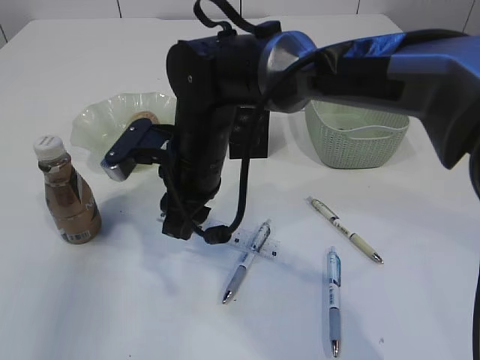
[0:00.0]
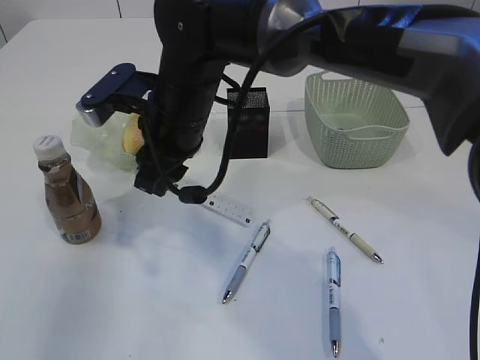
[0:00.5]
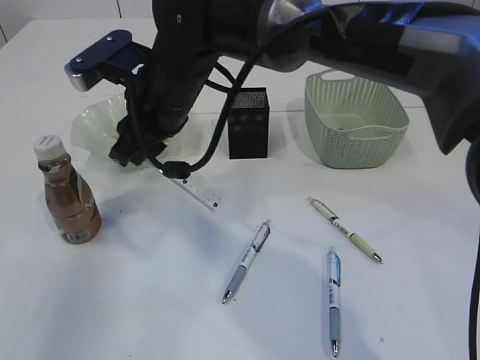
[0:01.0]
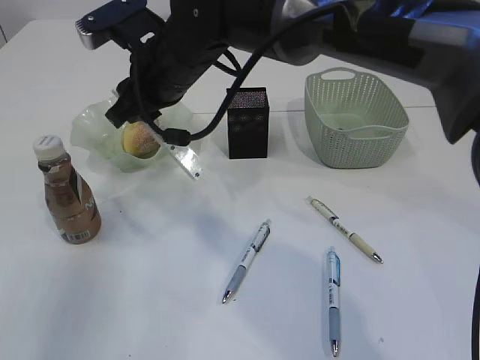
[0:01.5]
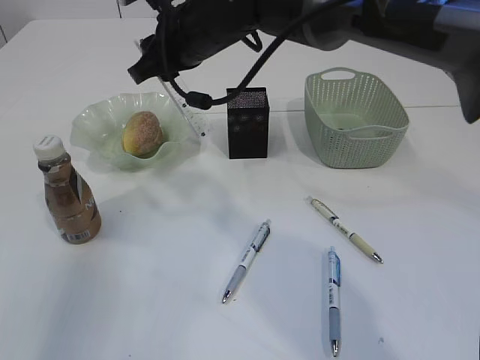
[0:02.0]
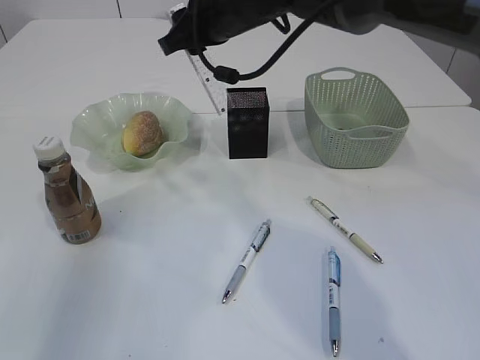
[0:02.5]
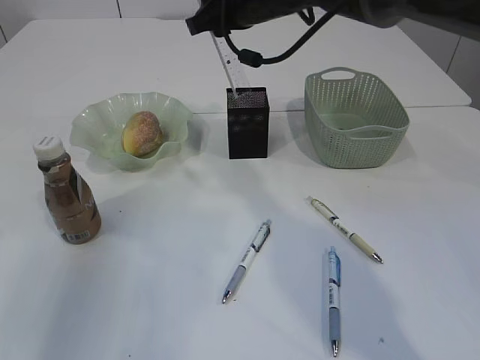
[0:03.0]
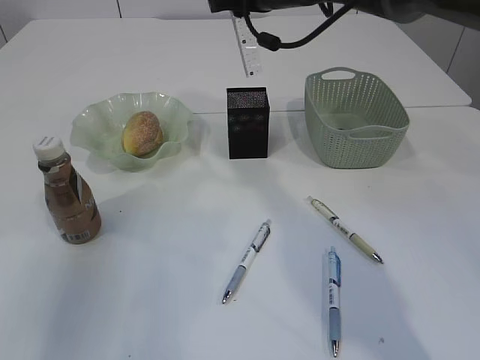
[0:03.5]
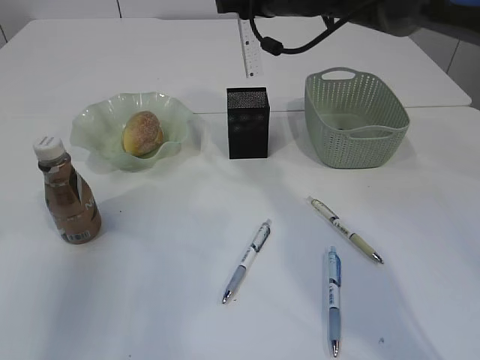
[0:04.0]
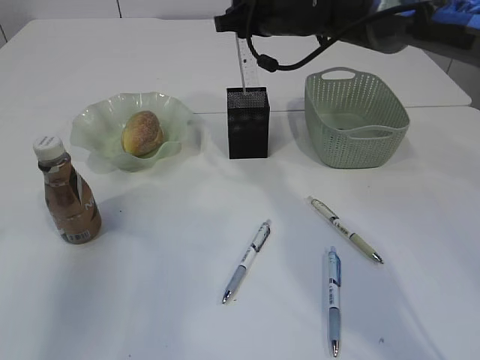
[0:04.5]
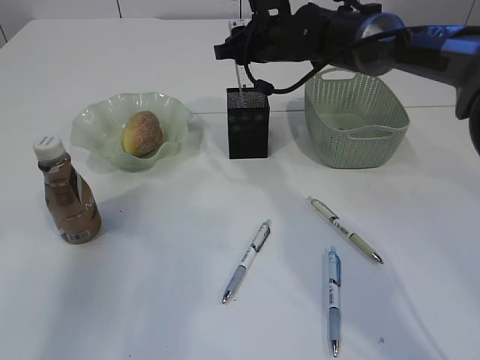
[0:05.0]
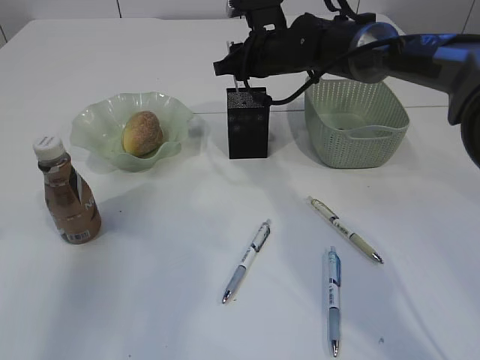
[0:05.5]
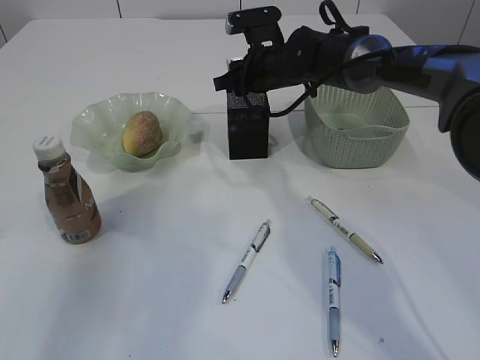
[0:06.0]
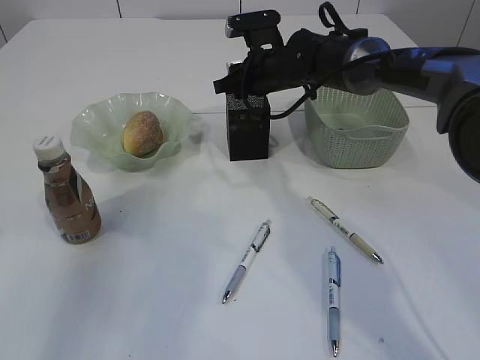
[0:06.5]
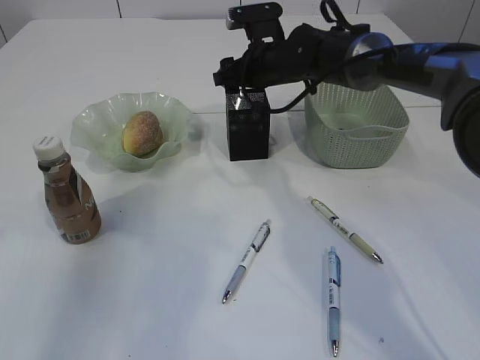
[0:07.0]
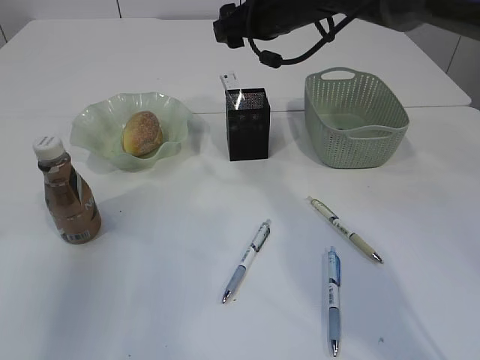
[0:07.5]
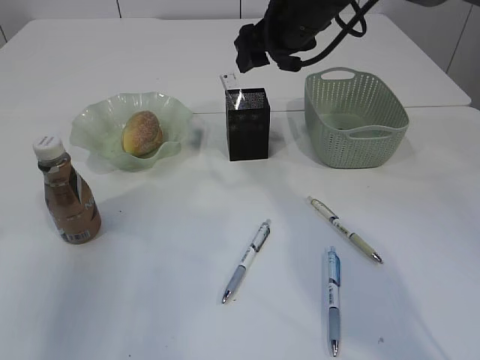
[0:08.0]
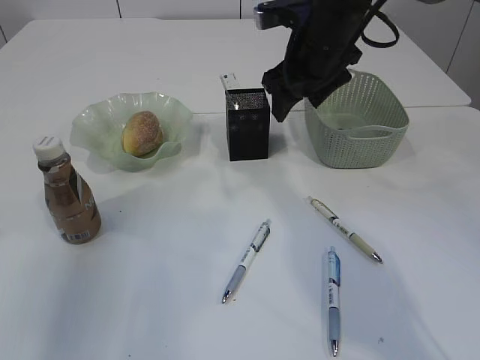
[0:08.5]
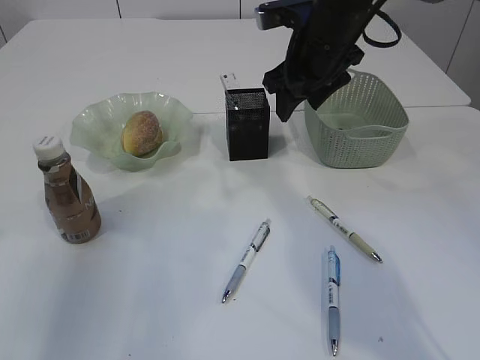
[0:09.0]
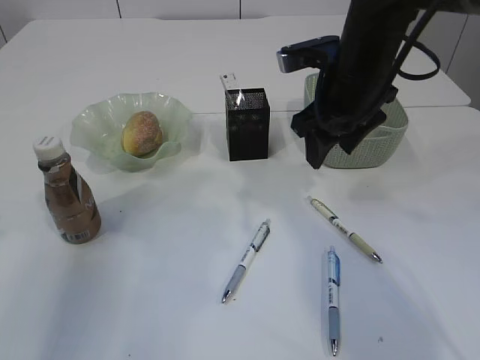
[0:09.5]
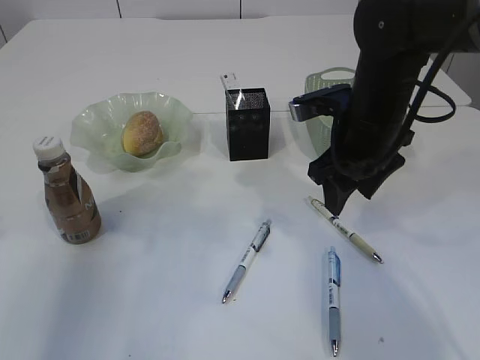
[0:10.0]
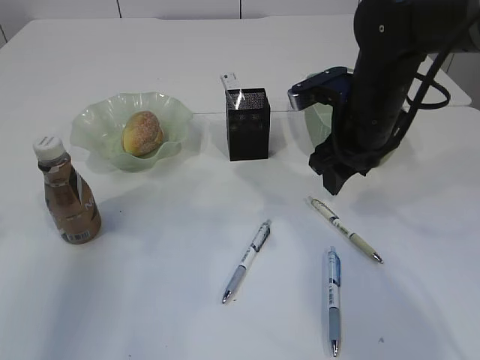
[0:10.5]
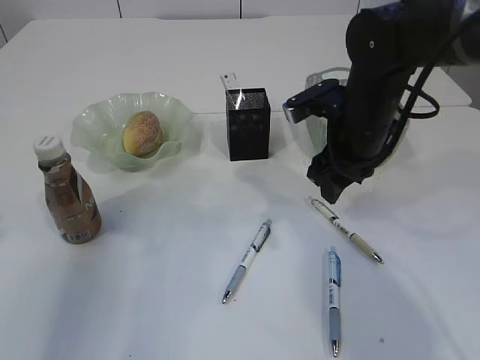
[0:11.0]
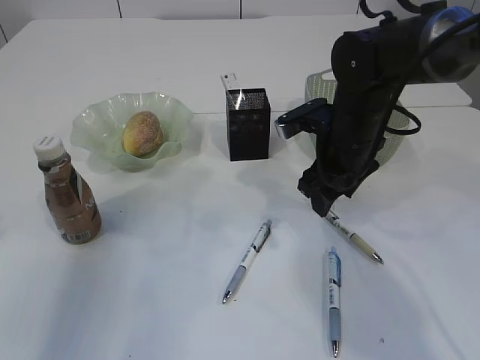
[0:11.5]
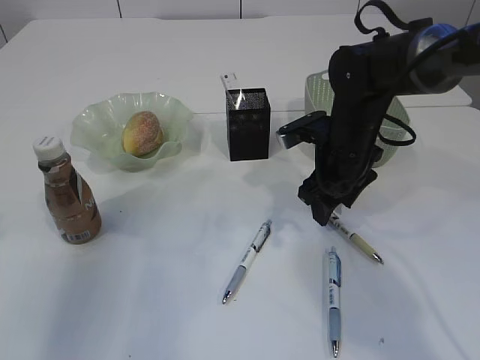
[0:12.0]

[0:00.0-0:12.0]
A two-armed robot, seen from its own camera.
Step, 0.5 to 7.0 s: Place the ruler into the pen holder.
0.0 to 2.0 s: The right gripper is displaced upward and forward by about 15 cm.
2.0 to 4.0 s: The right gripper shifts some 15 cm to the right and forward.
4.0 to 6.0 s: The right gripper goes approximately 10 cm downward.
6.0 to 8.0 s: The right gripper moves upward and backward, some 10 cm, and opens.
8.0 to 10.0 s: The right gripper shifts roughly 15 cm backward and downward.
10.0 to 12.0 s: The right gripper goes roughly 5 cm downward.

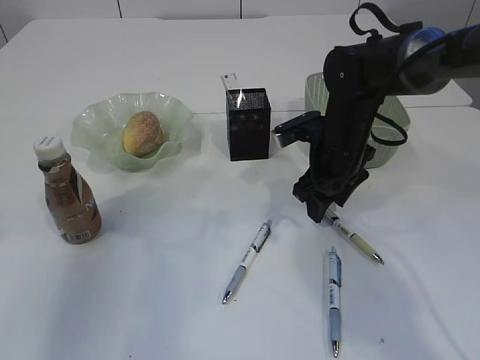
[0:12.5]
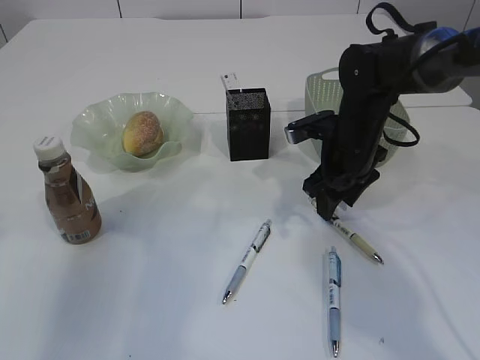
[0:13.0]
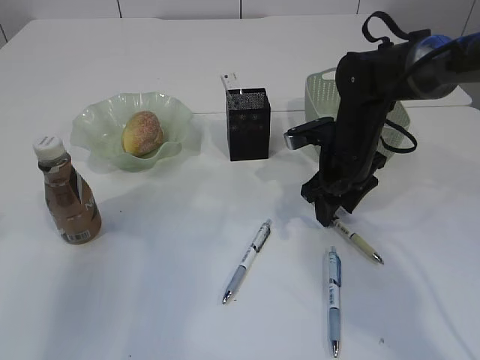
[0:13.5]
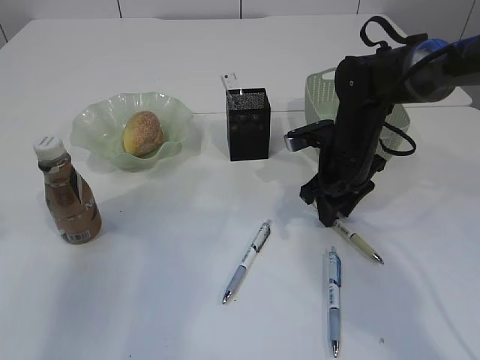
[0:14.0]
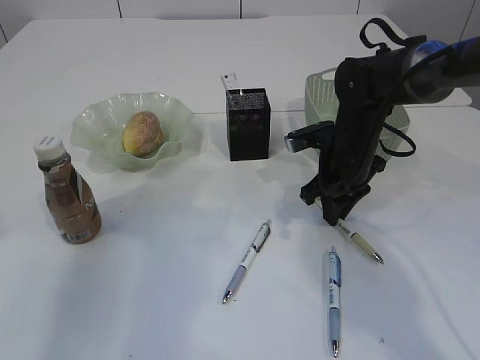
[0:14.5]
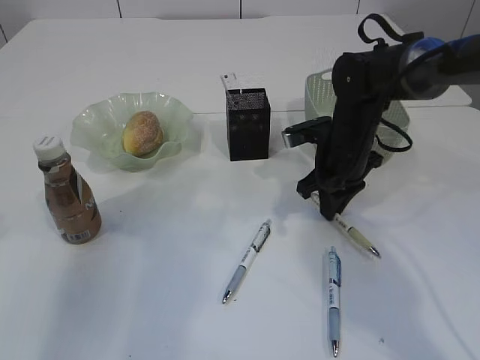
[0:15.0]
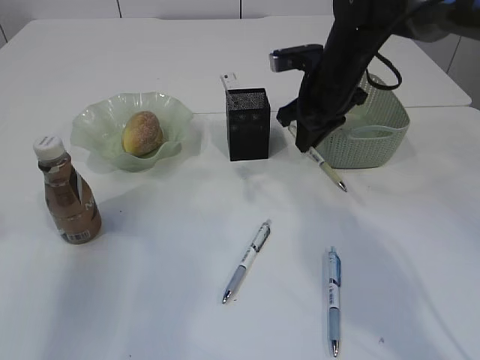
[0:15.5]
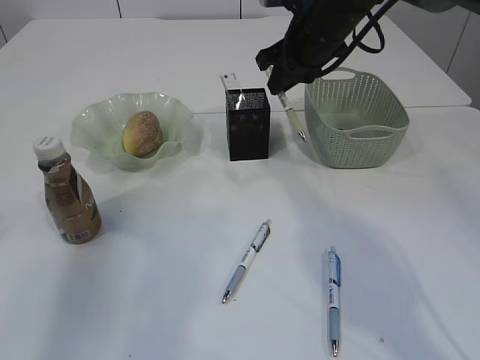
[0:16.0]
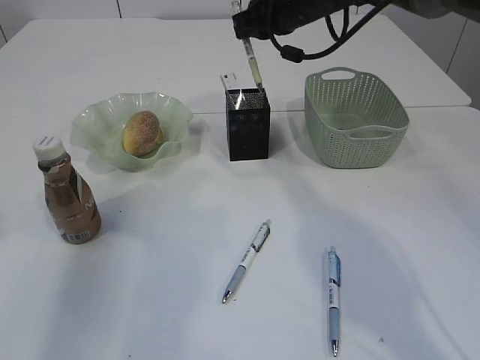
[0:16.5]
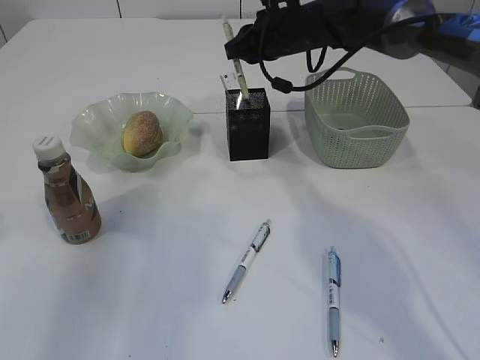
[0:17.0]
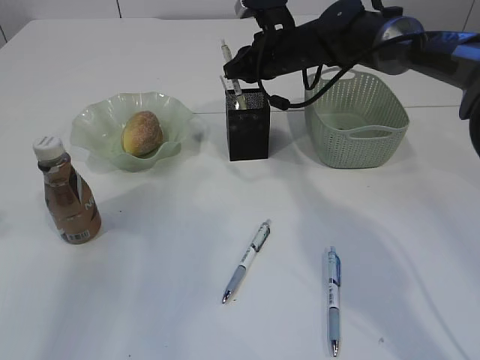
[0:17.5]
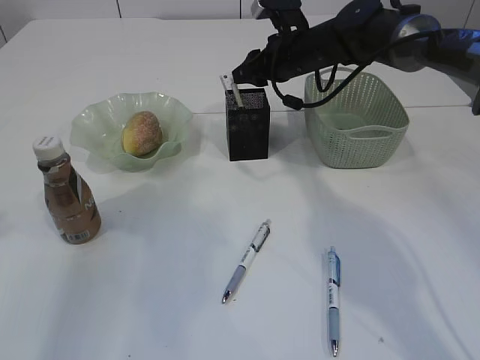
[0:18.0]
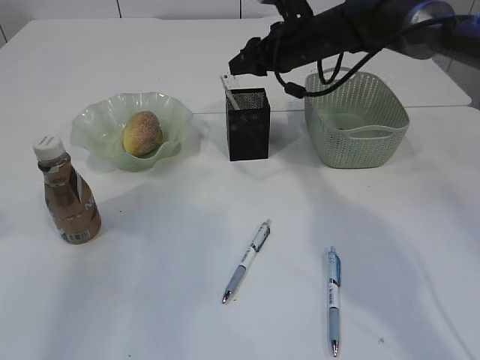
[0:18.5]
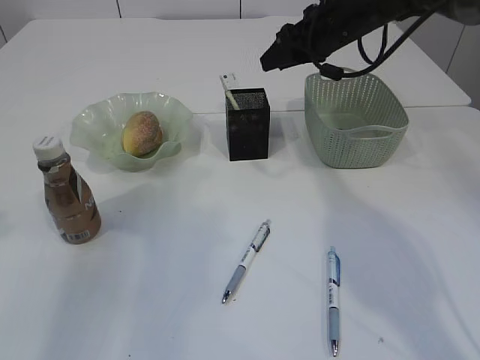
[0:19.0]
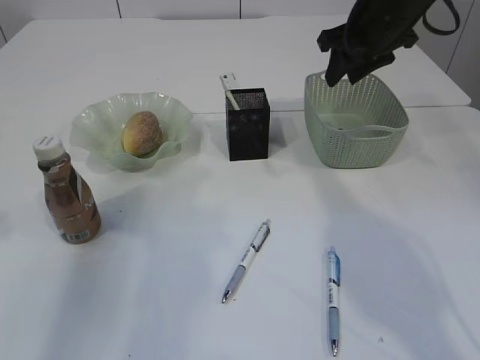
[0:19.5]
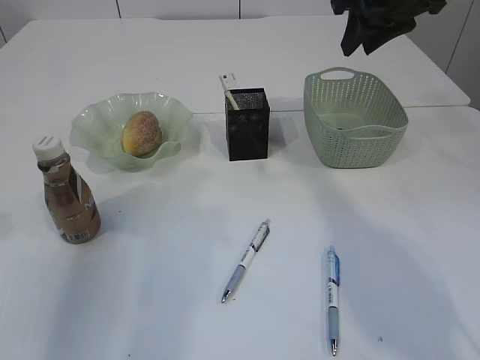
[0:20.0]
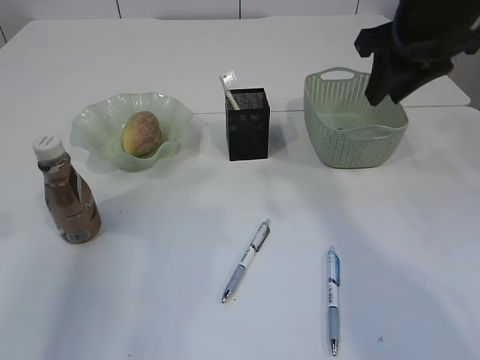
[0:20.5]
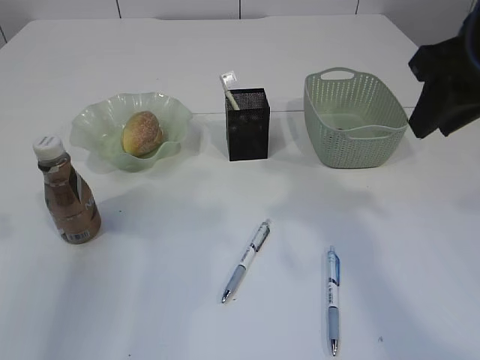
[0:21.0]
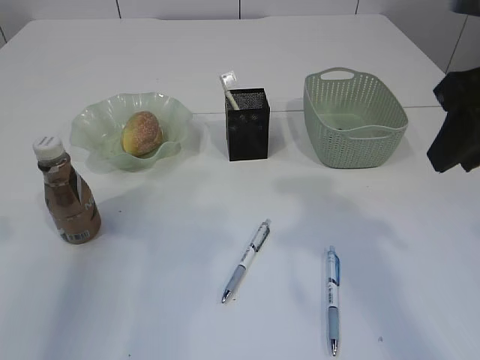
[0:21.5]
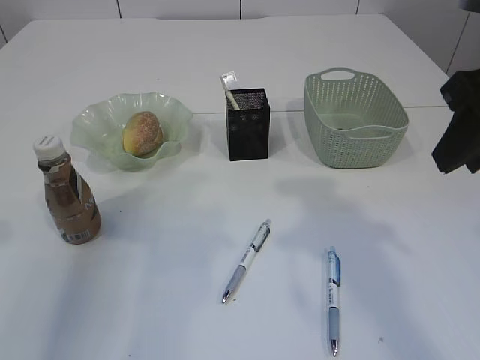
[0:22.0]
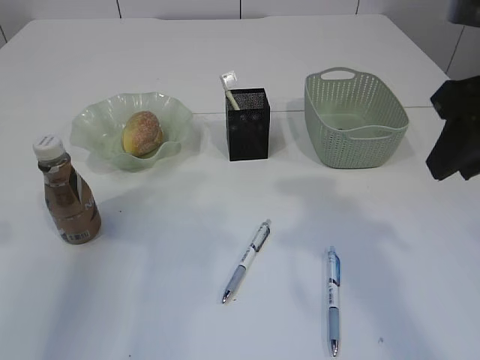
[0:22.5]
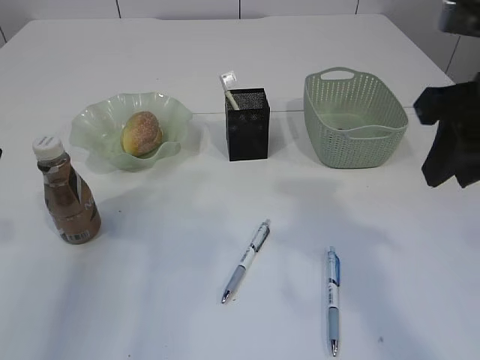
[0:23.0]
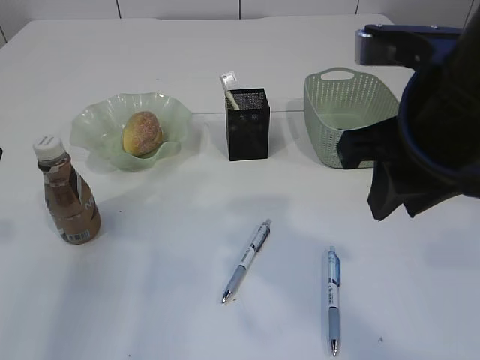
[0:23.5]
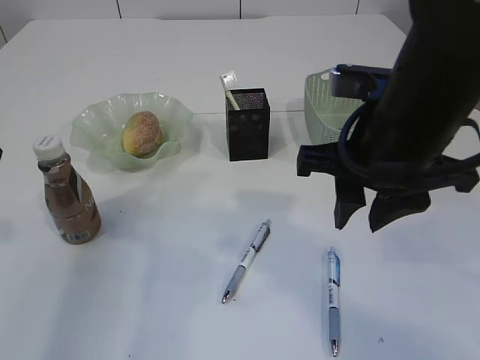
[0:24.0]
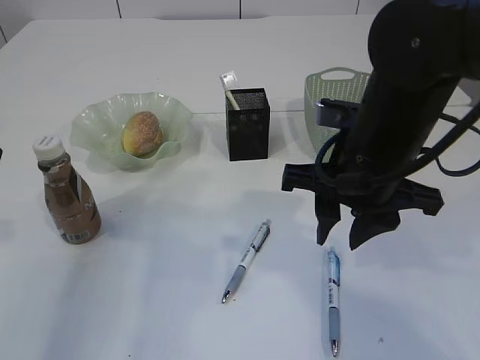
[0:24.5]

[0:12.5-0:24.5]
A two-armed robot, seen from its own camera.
Step, 12.5 to 15.0 s: Pick up the pen with right arm.
Step, 15.5 to 18.5 s: Place the pen into the pen holder.
12.5 to 14.5 s: The right gripper closes its fingers.
14.5 to 16.5 s: The right gripper is displaced upward and forward by roughly 20 cm.
16.5 to 18.5 s: The right gripper heads downward, covering approximately 5 cm, and opens its fingers.
18.5 to 20.5 s: The right gripper goes approximately 20 cm backward, upward and to the right.
20.5 to 22.5 s: The right gripper is displaced backward by roughly 10 cm.
22.5 to 24.5 s: The right gripper heads to the left and downward, covering about 15 cm.

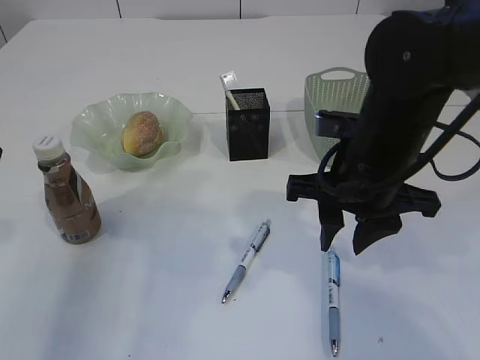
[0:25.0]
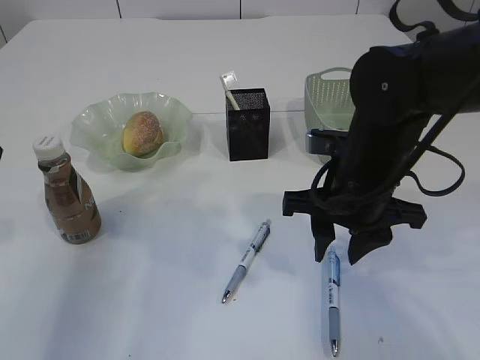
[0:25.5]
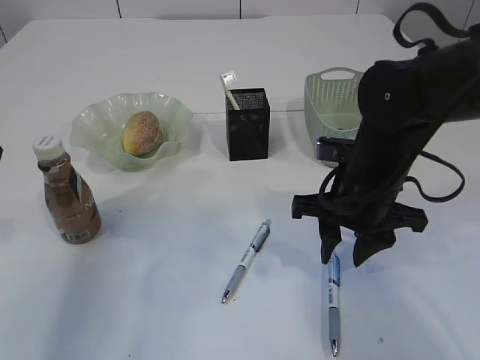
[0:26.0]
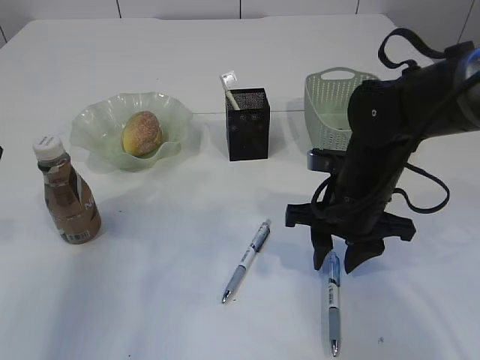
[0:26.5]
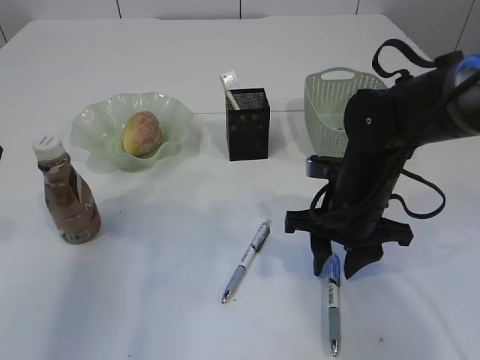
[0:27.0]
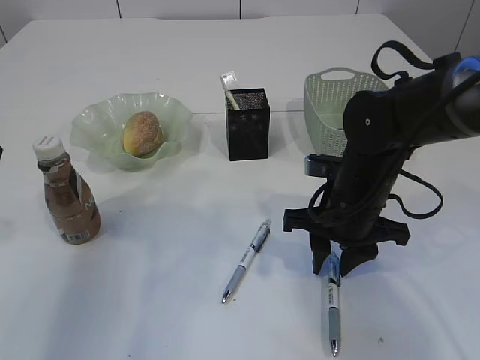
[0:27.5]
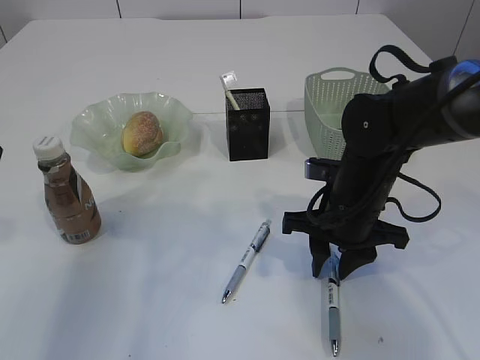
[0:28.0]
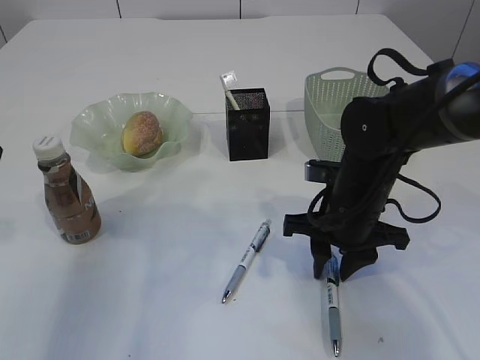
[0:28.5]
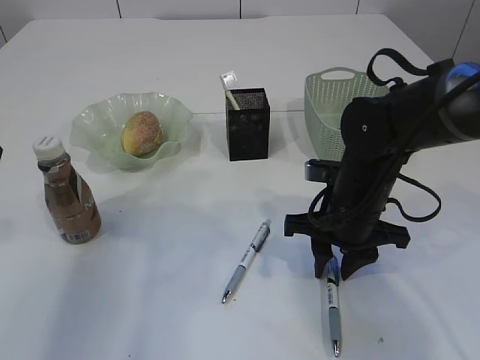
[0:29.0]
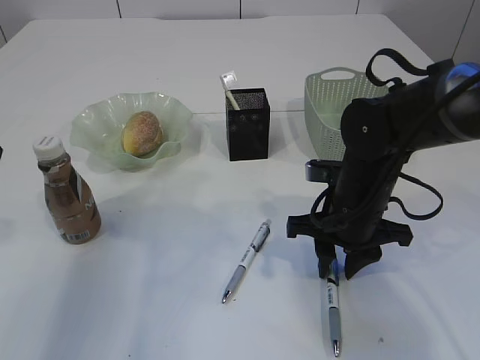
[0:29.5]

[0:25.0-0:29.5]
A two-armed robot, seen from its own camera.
25.0 to 27.0 s: The right gripper is displaced downward by some 10 cm.
27.0 to 29.5 s: Neither gripper changes place.
